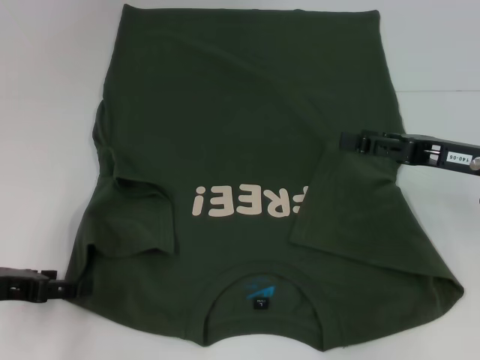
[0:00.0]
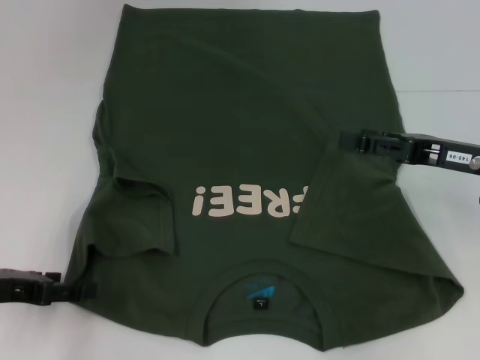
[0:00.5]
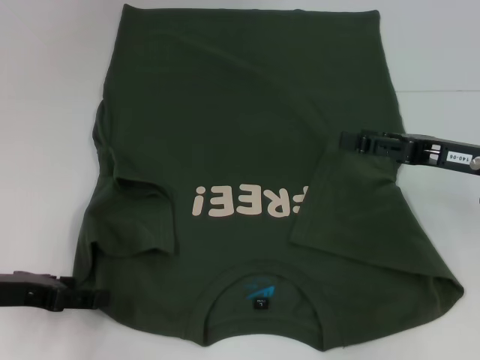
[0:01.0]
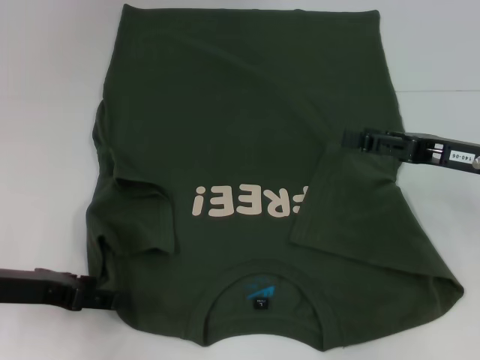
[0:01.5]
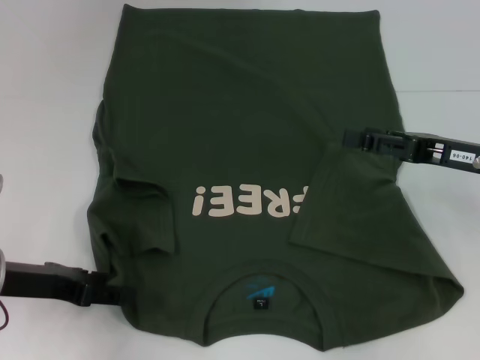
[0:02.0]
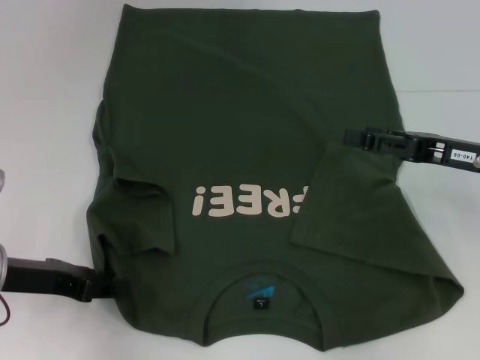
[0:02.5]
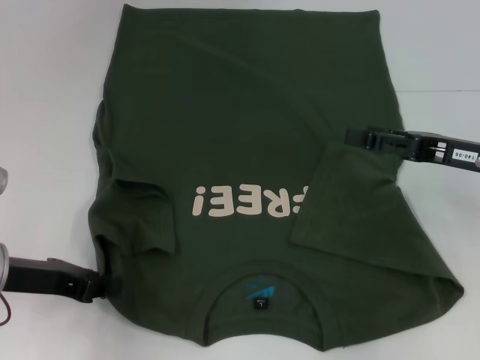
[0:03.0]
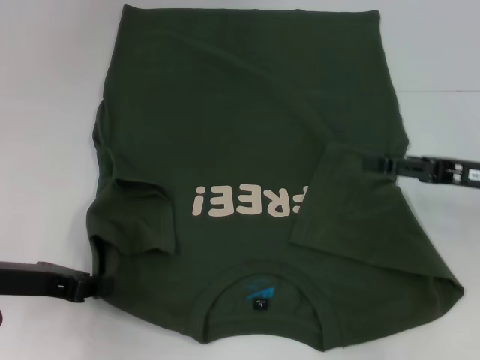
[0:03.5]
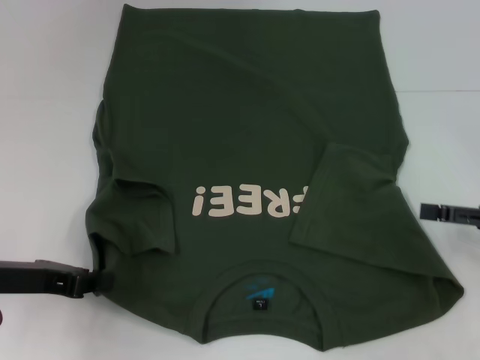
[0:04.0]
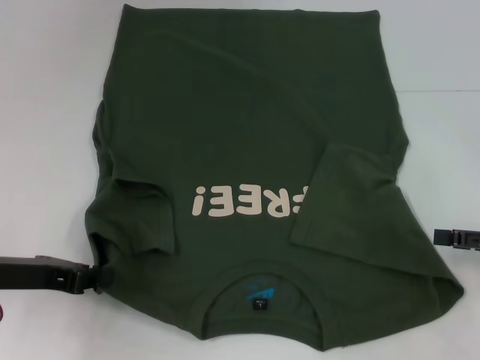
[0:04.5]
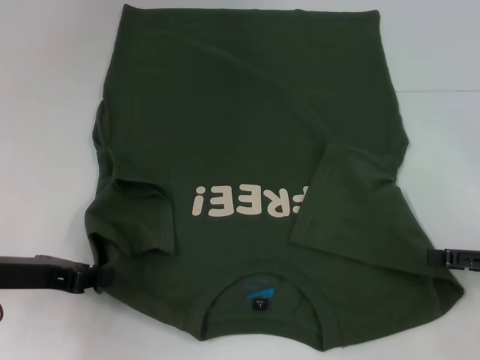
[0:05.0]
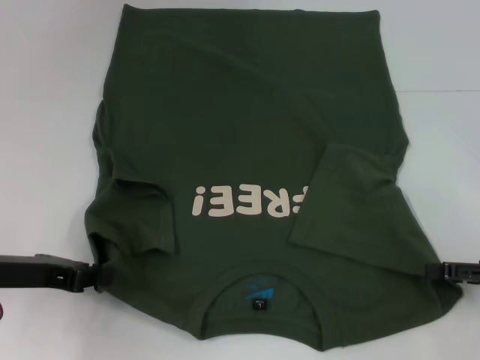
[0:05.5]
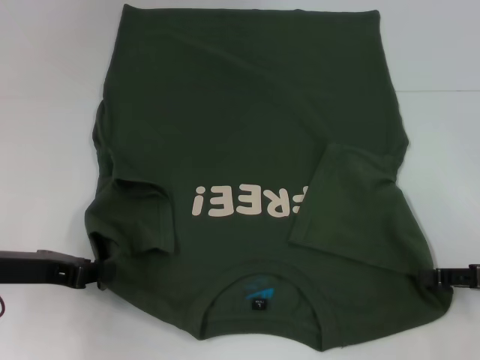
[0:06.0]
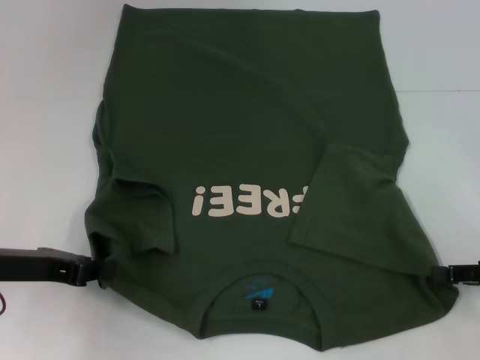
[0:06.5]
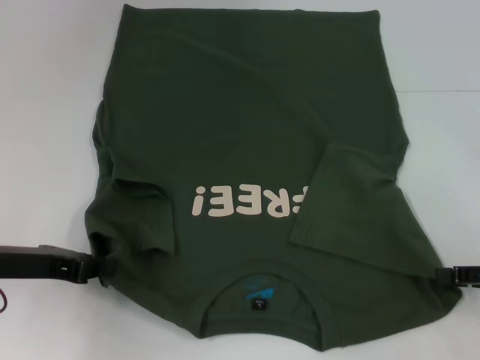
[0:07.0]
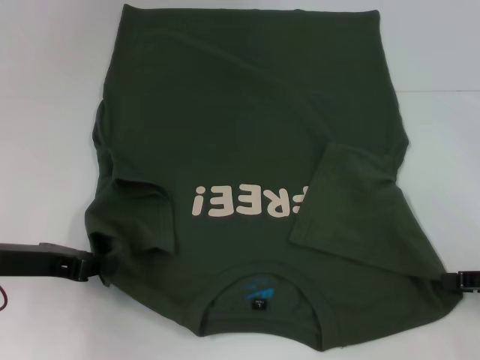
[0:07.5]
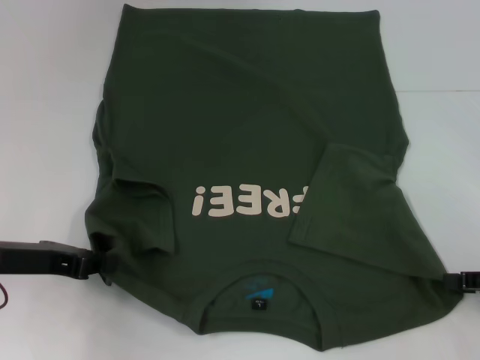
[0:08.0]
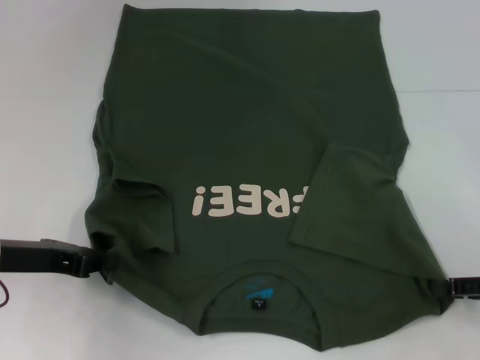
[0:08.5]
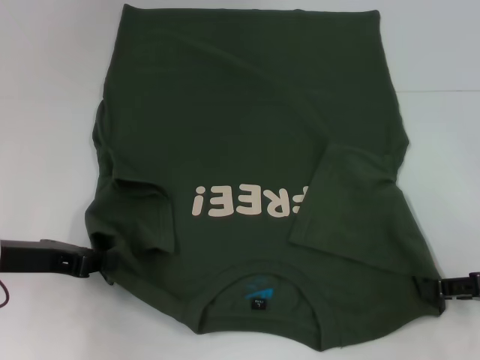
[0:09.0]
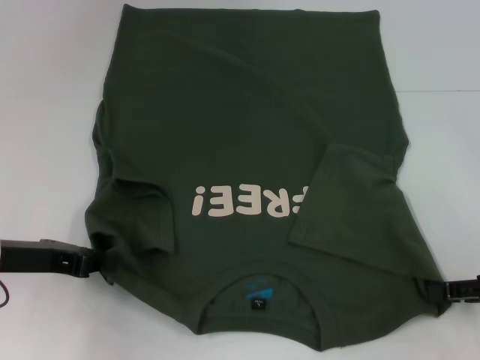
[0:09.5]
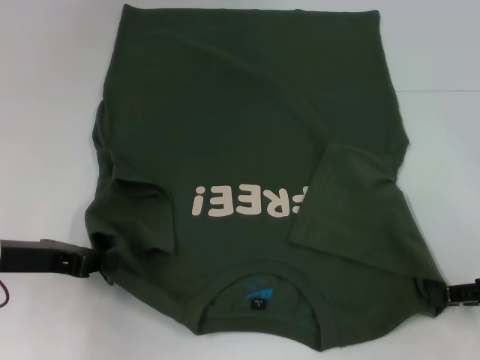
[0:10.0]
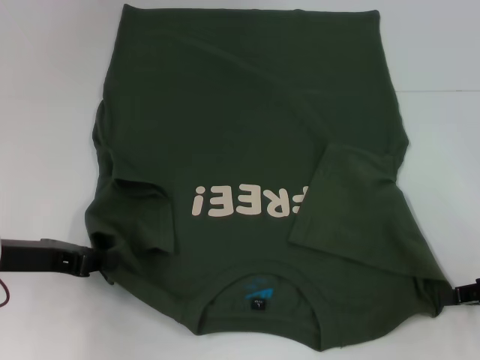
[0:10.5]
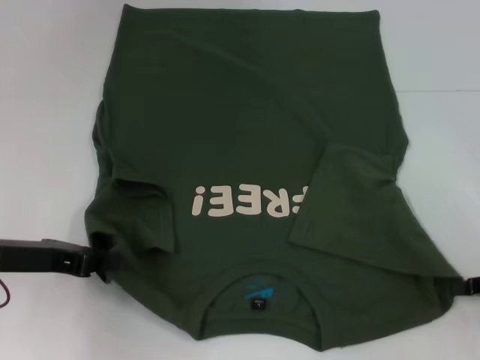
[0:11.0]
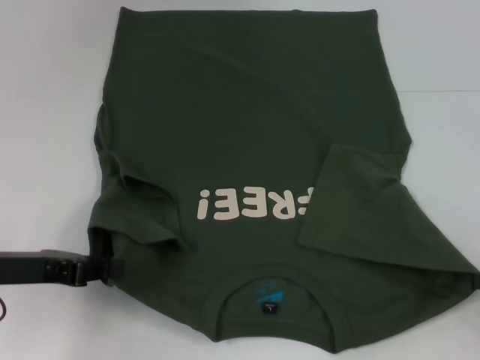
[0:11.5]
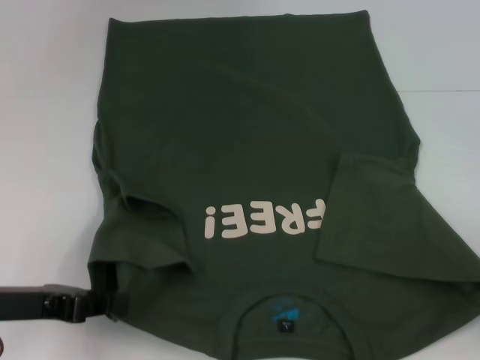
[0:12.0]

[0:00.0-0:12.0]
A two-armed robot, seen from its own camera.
Step, 0:00.0 to 0:08.5: Grab the bottom right corner with your right hand.
0:00.0 to 0:02.0: The grippers make only small movements.
0:02.0 to 0:04.0: The right gripper goes some 5 cm to the right; the left gripper closes up.
0:04.0 to 0:10.0: The grippers make only small movements.
0:10.0 to 0:12.0: The right gripper travels backward by some 5 cm, and closes its fingers.

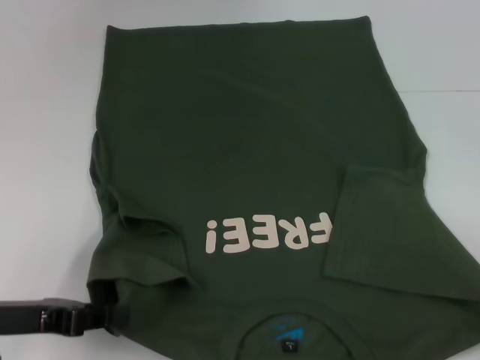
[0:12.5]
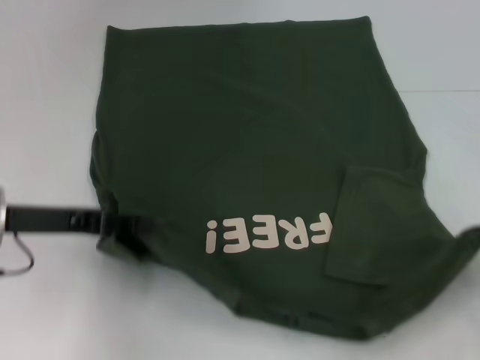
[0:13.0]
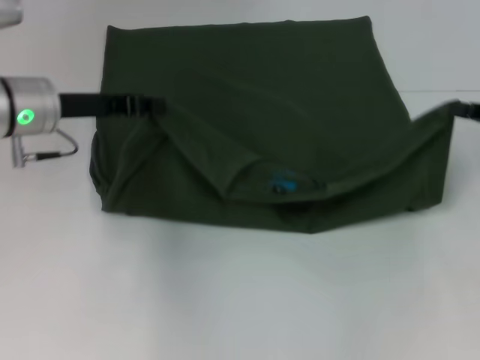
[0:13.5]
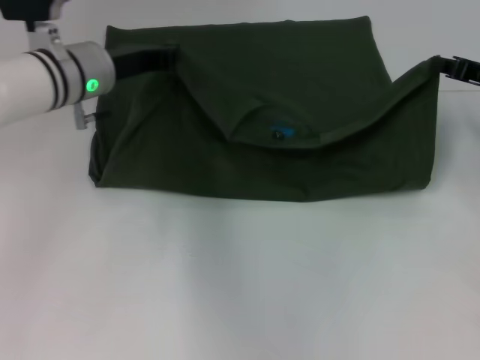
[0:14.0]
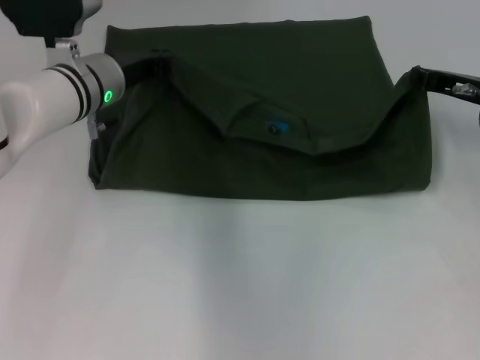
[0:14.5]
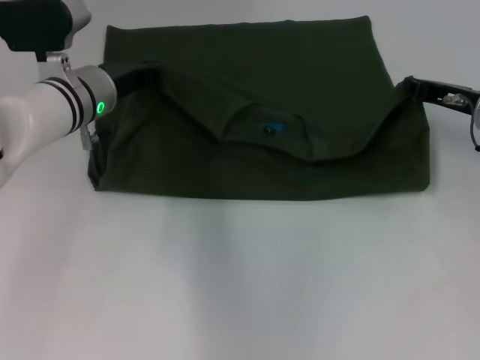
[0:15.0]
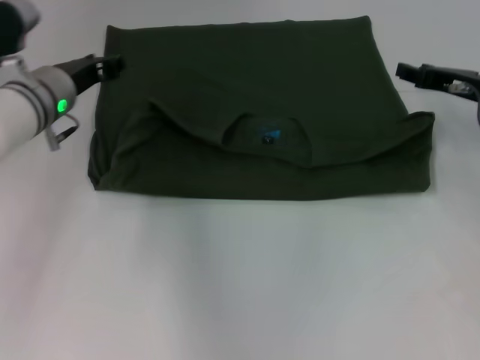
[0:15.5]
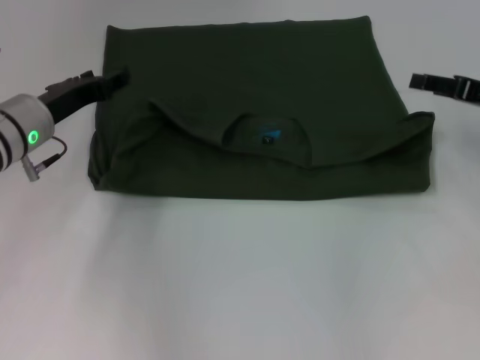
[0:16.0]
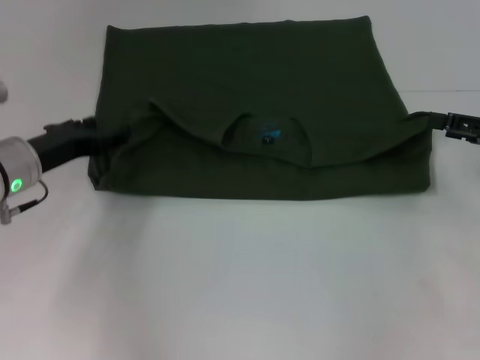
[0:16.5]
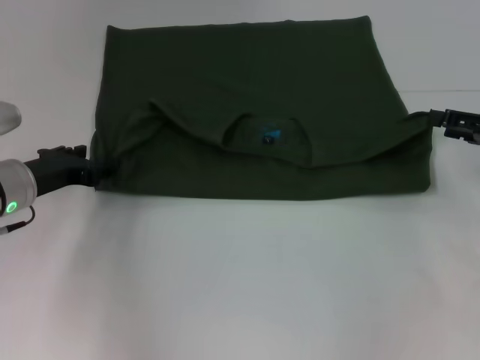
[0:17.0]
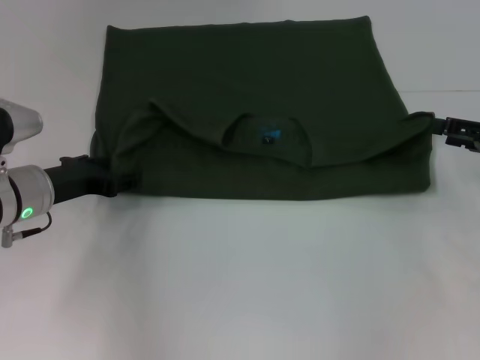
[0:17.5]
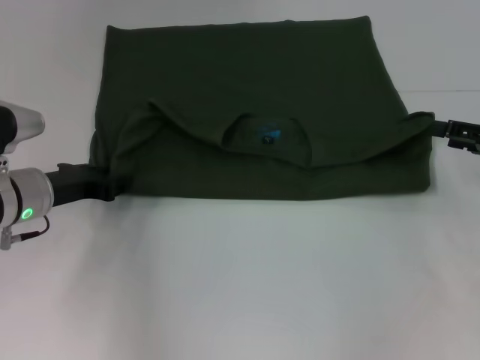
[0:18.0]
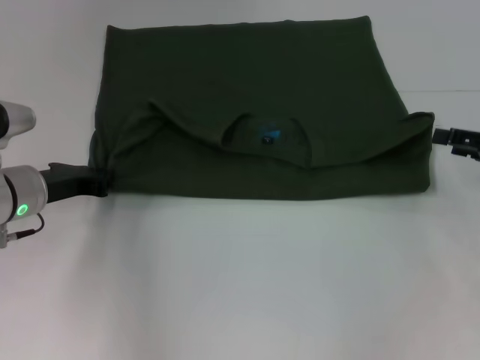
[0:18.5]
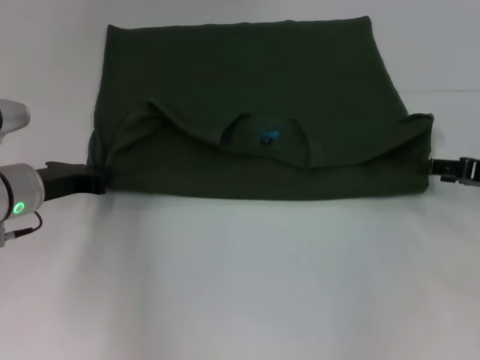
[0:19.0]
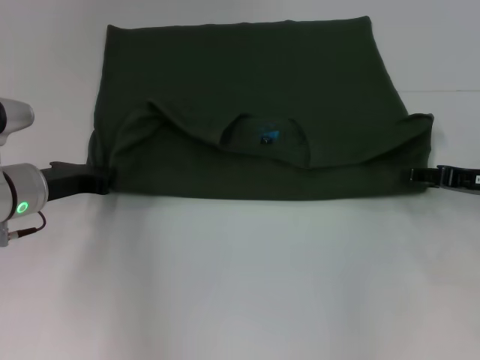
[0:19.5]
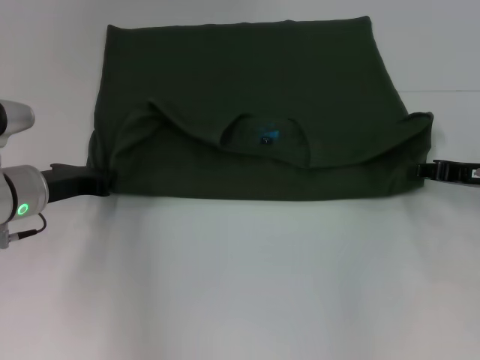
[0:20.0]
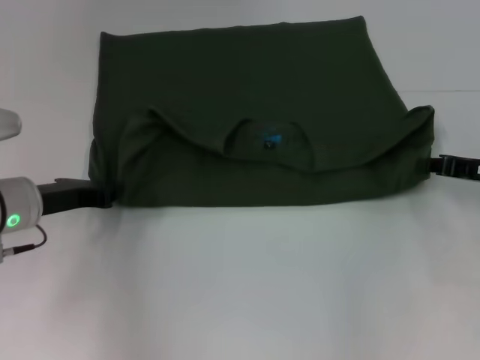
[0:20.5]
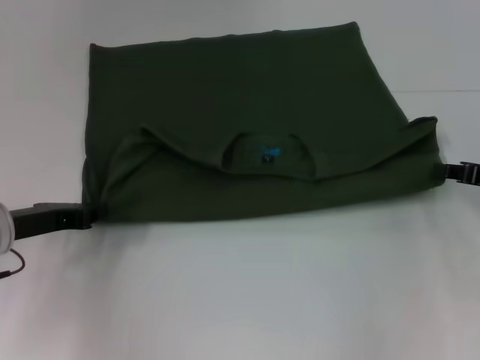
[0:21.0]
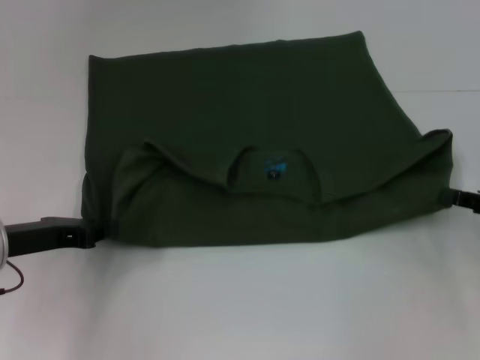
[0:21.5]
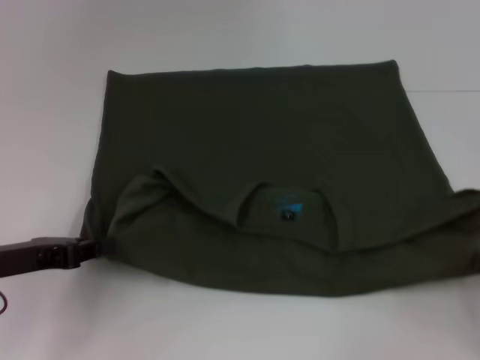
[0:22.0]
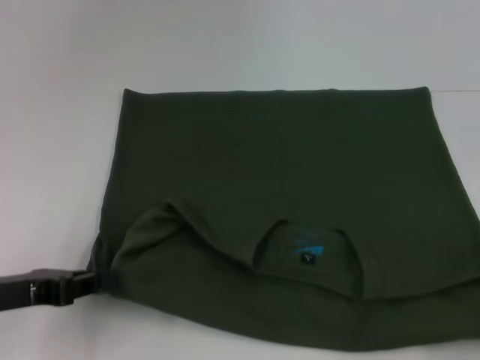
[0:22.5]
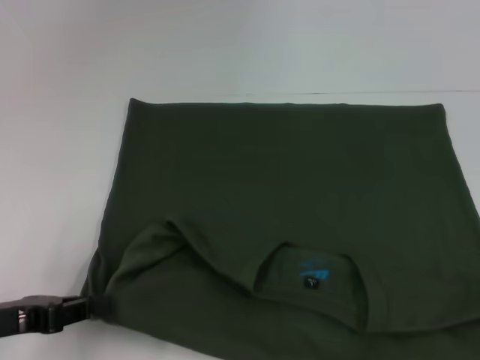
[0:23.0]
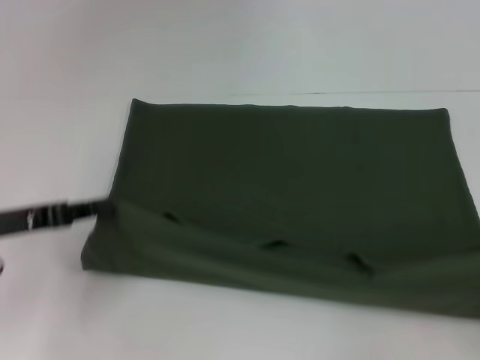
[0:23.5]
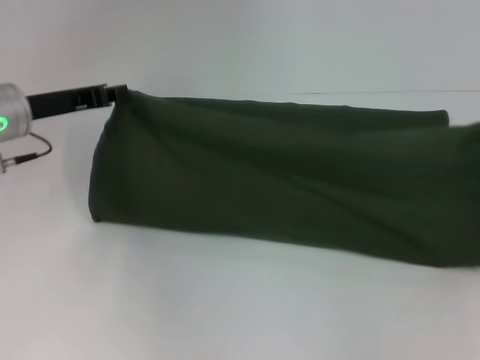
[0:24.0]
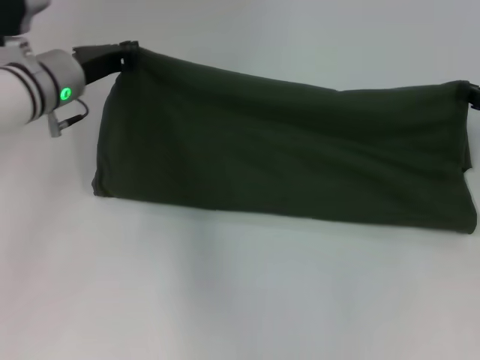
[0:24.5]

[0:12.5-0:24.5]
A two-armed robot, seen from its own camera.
Step, 0:12.5 to 0:15.0: Fold the clothes with your left hand.
Step, 0:12.5 to 0:15.0: Fold the clothes with your right hand.
Step, 0:15.5 to 0:23.0: Pull the clothes with your left hand.
Step, 0:15.5 to 0:23.0: Pull the clothes with your right hand.
0:12.5 to 0:14.5: The right gripper moves forward and to the left, approximately 30 cm. Meanwhile the left gripper shifts some 25 cm forward and to the right.
0:14.5 to 0:16.5: The left gripper moves to the left and backward, some 10 cm, and opens up, while the right gripper goes some 10 cm backward and to the right, and opens.
0:16.5 to 0:18.5: The left gripper closes.
0:18.5 to 0:20.5: The right gripper closes up.
0:20.5 to 0:22.5: The left gripper travels backward by approximately 10 cm; the right gripper is displaced backward by some 20 cm.
0:22.5 to 0:24.5: The left gripper moves forward and to the right, some 20 cm; the right gripper goes roughly 25 cm forward.

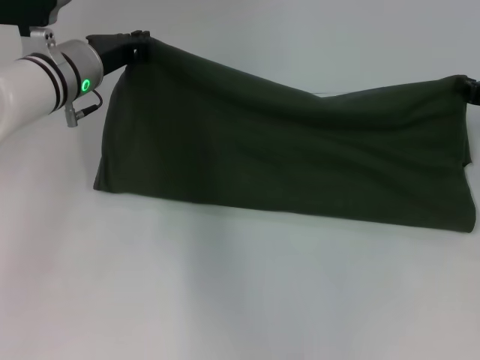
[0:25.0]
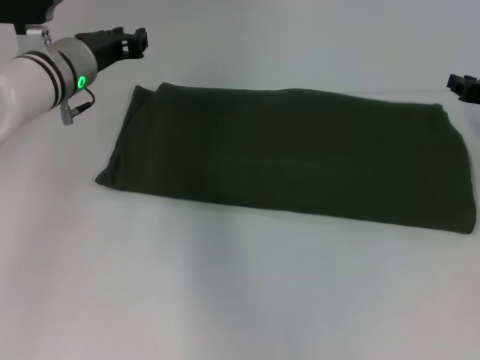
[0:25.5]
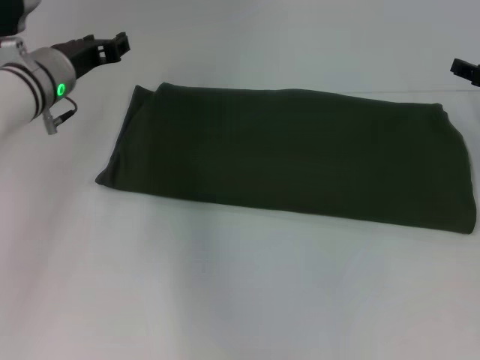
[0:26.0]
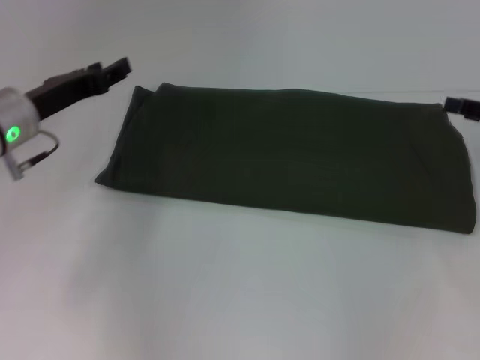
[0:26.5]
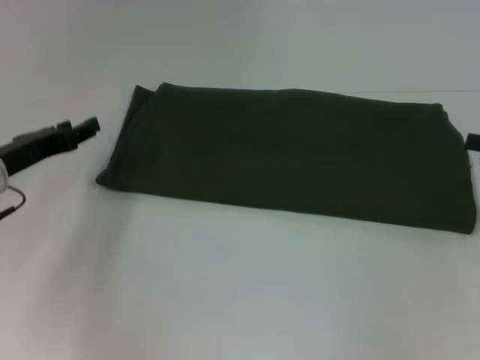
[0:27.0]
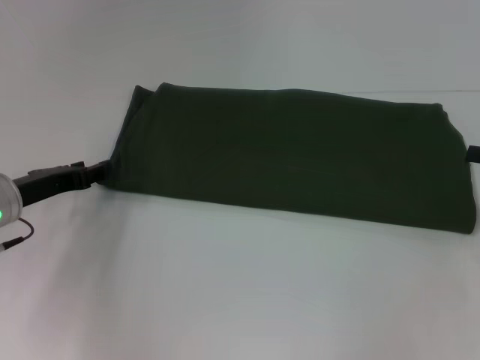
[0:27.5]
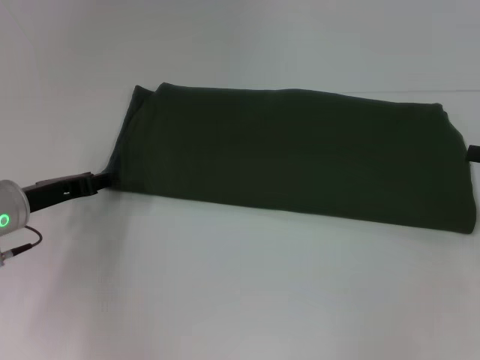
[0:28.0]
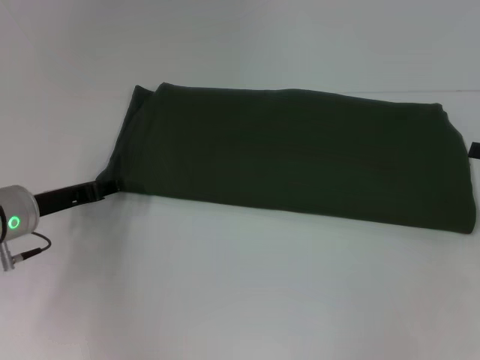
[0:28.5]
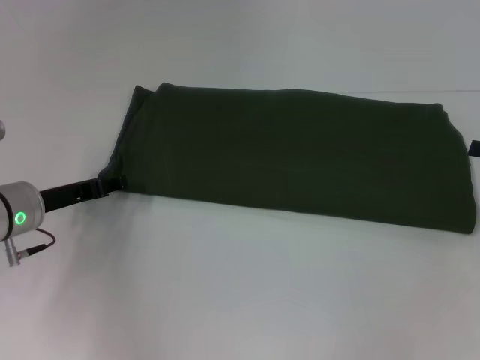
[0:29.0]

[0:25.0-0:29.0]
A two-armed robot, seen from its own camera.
0:25.0 to 0:27.0: The right gripper shifts some 10 cm backward, and opens up, while the left gripper heads backward, to the left and downward, covering about 15 cm, and opens.
0:27.0 to 0:29.0: The grippers stay close to where they were, moving slightly.
